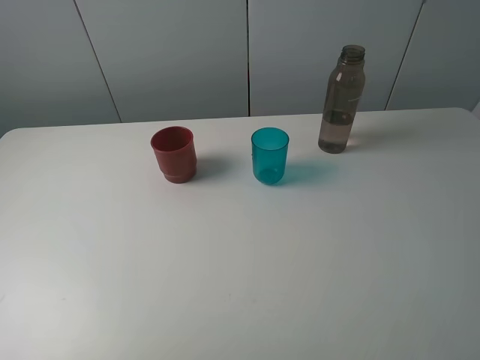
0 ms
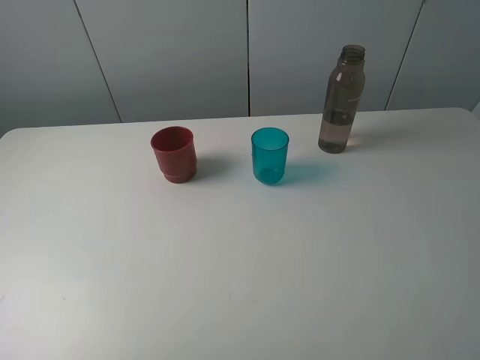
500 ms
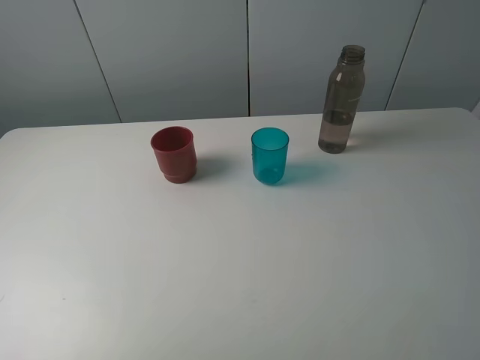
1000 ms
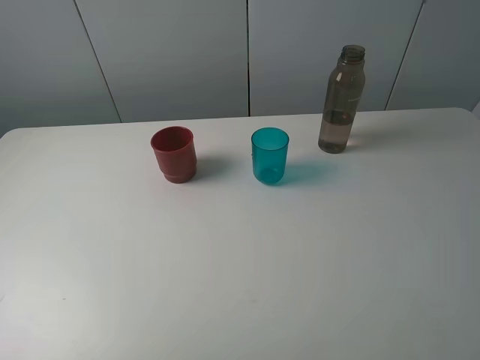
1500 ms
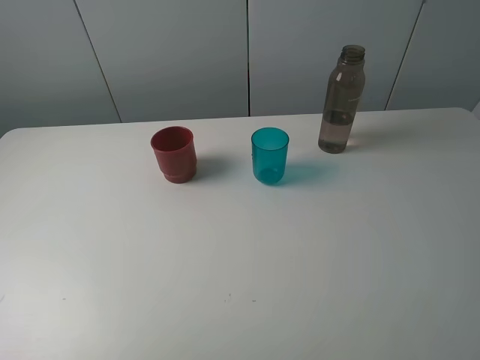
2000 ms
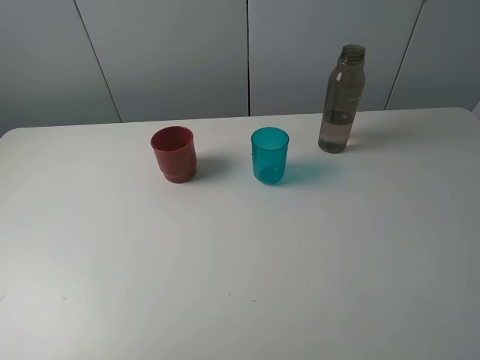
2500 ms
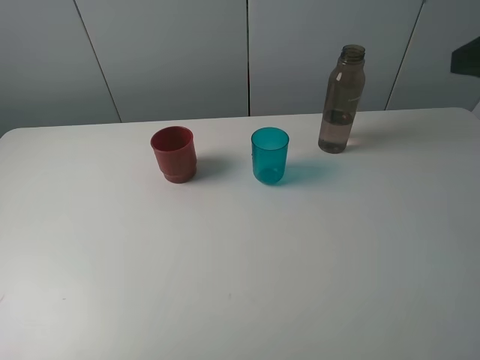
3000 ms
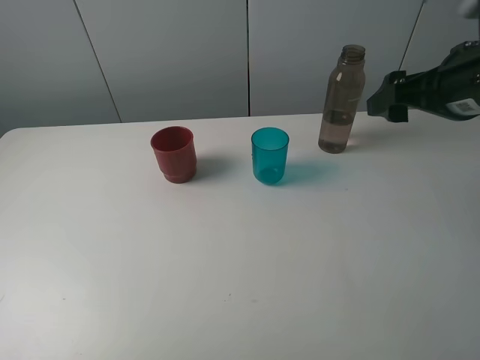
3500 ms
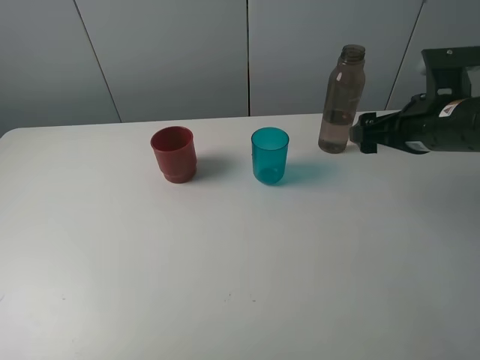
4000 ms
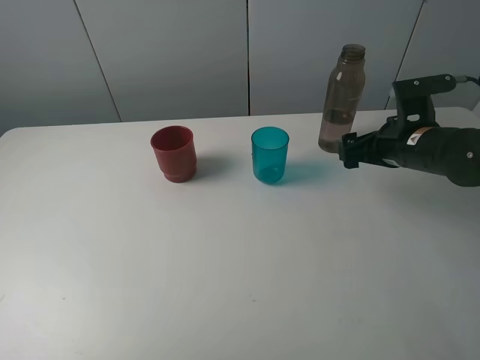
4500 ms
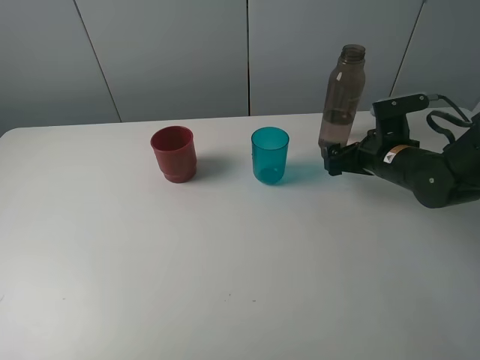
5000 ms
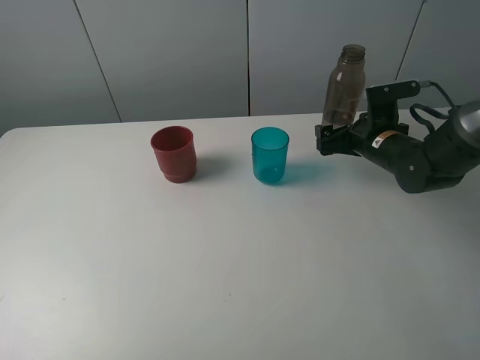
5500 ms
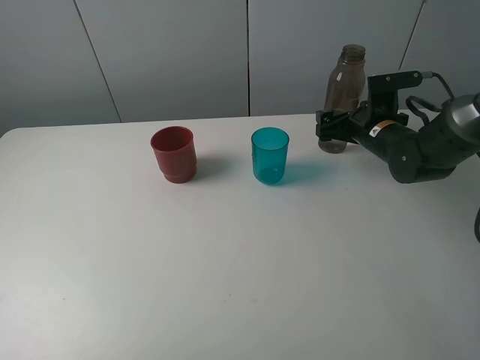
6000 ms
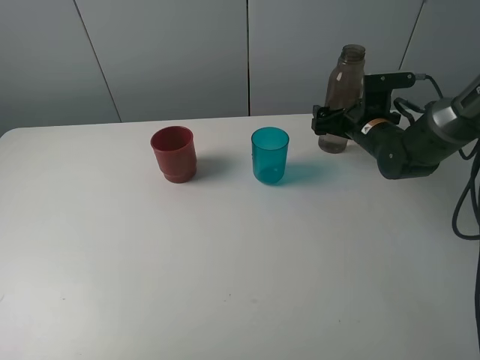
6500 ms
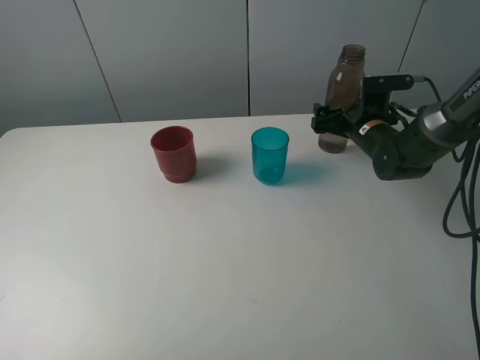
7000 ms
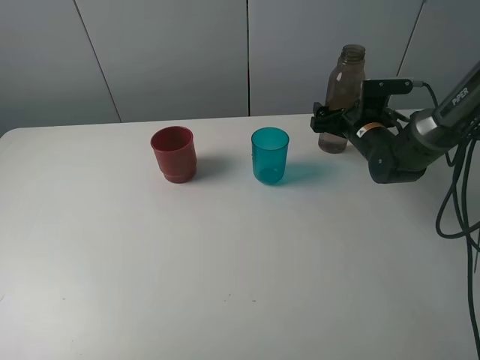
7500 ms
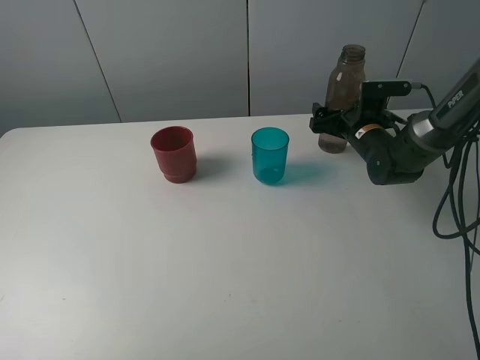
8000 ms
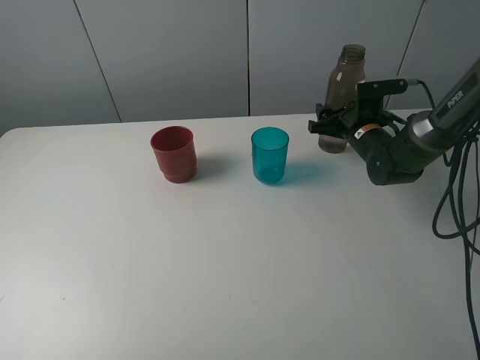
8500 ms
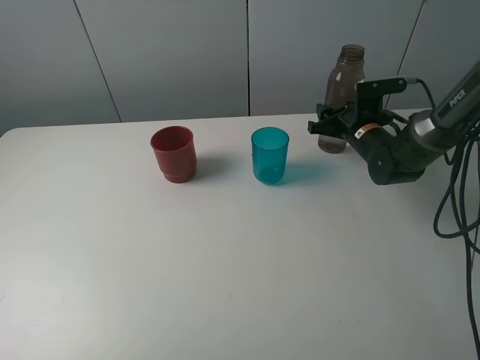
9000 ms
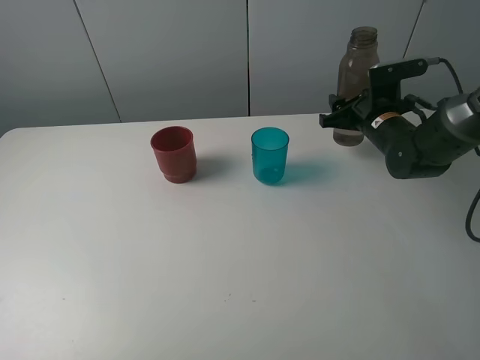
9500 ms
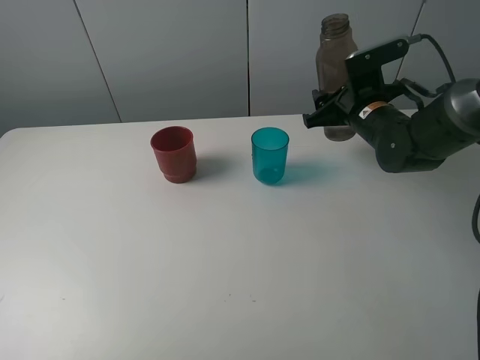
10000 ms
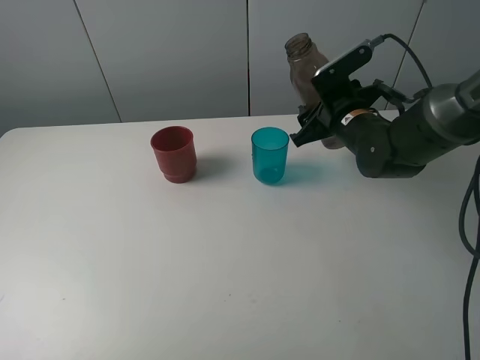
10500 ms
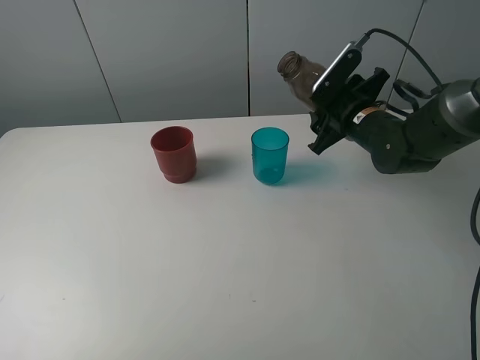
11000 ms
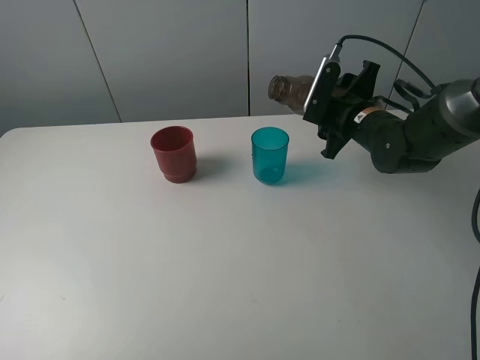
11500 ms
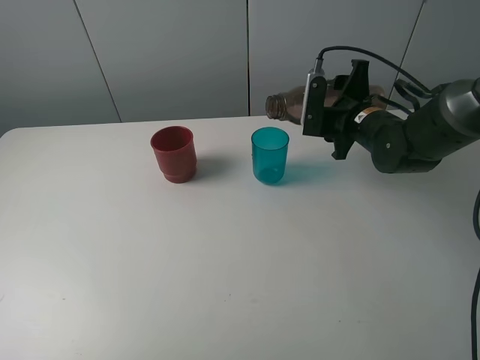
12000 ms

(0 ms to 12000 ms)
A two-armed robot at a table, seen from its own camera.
Task of the whole recording: pick up the bottle and pour water into the cup, then pick up the cup containing water and pour it into another cup.
Step, 0 ms - 8500 ms: Grasp the brown bottle with the right gripper.
0 ms - 2000 ms: Neither gripper changes place.
2000 ms - 4000 ms: The right gripper goes about 30 cm forward.
4000 ms - 6000 ms: The right gripper moves forward and downward, some 15 cm.
6000 ms - 8000 ms: There are only small adjustments of the grippers.
8000 ms - 10000 ms: The right gripper is displaced upward by roughly 5 cm, and closes.

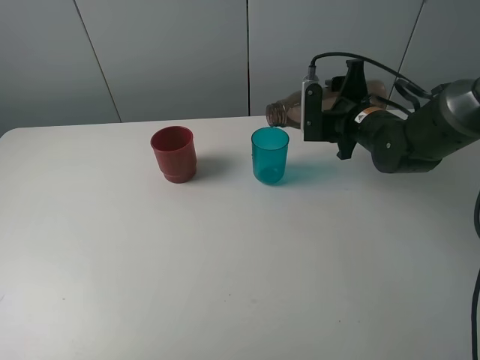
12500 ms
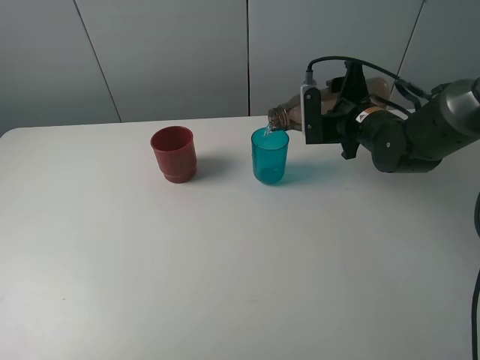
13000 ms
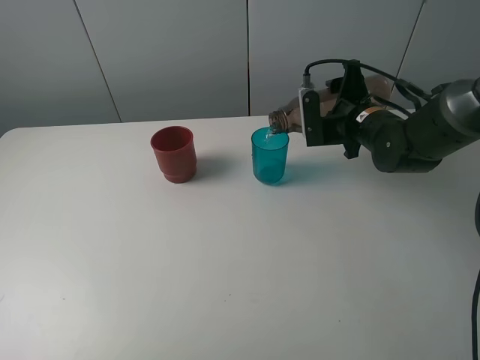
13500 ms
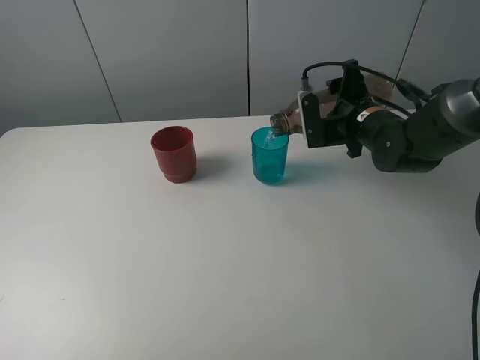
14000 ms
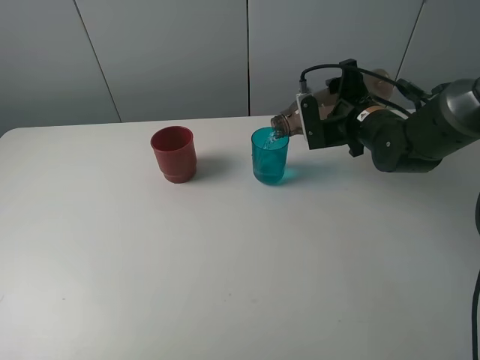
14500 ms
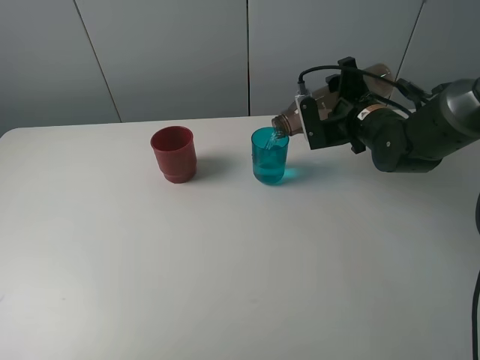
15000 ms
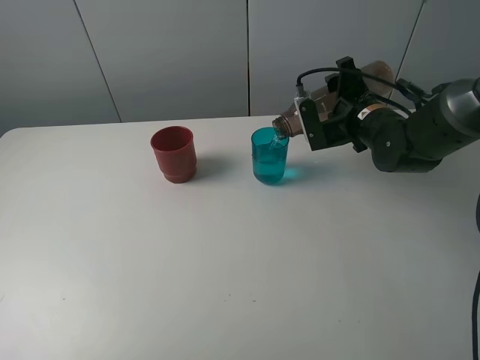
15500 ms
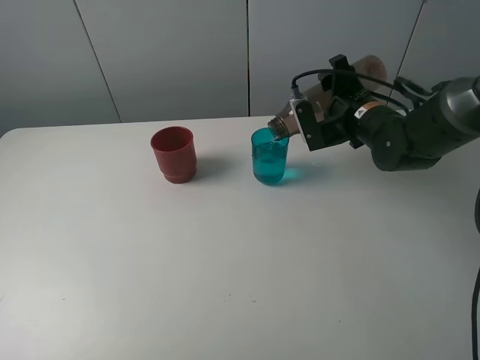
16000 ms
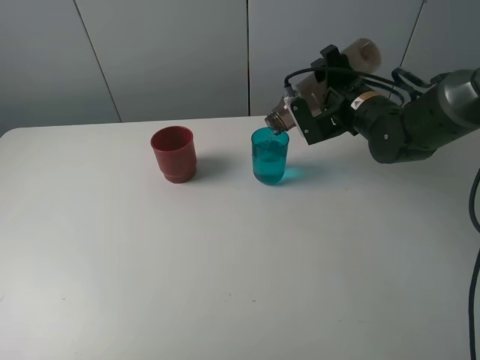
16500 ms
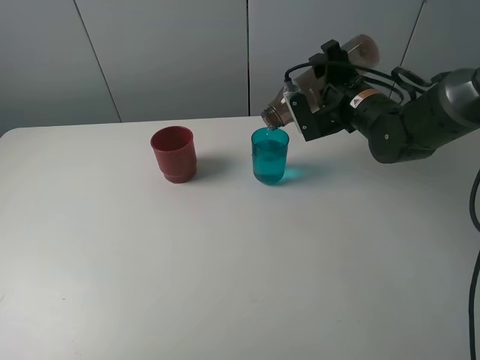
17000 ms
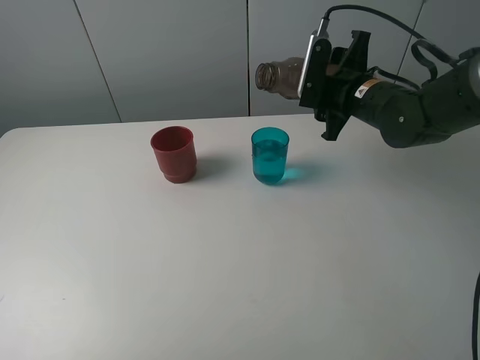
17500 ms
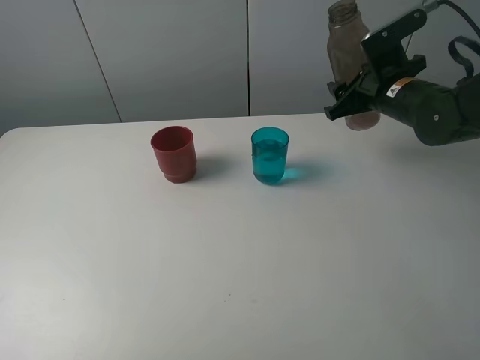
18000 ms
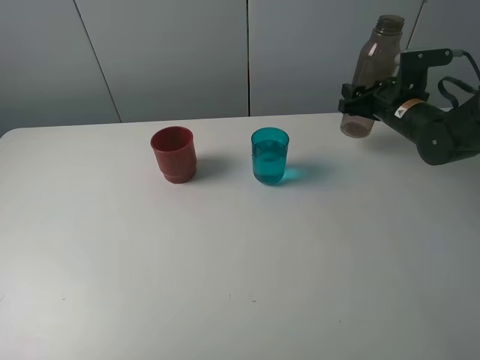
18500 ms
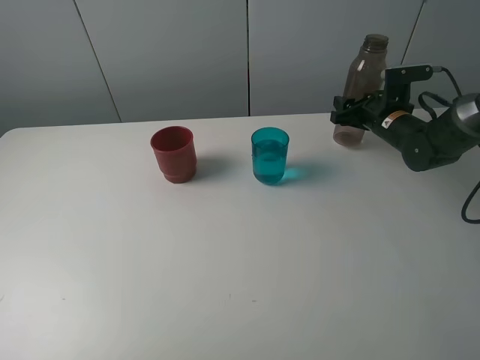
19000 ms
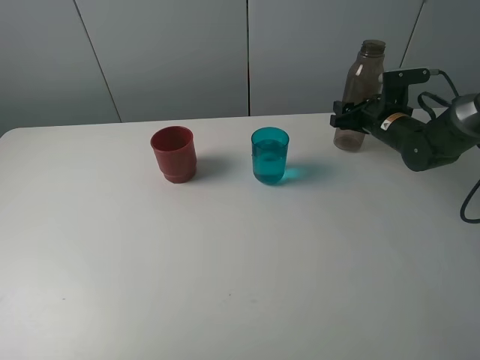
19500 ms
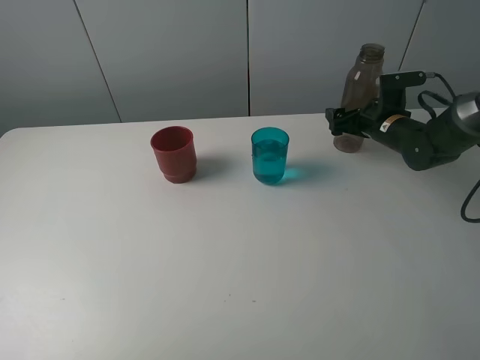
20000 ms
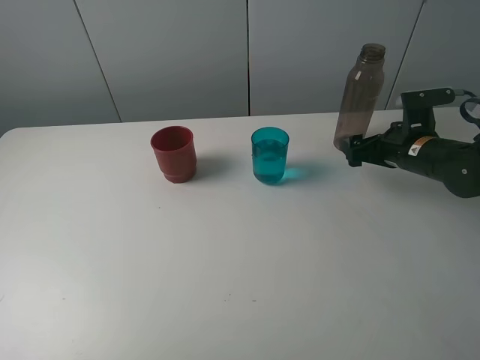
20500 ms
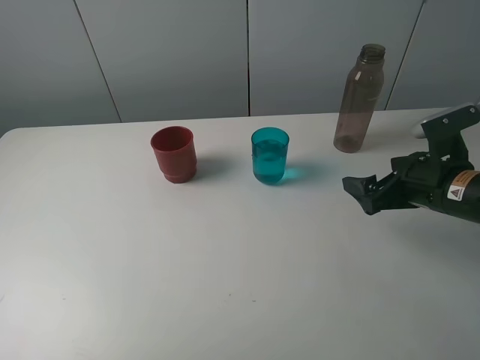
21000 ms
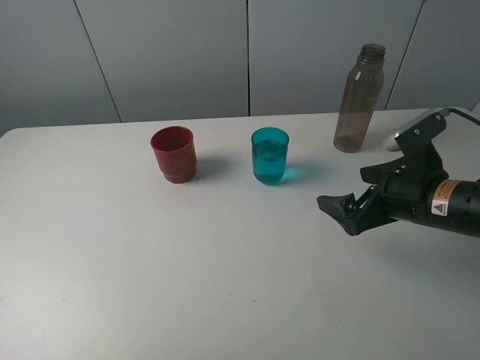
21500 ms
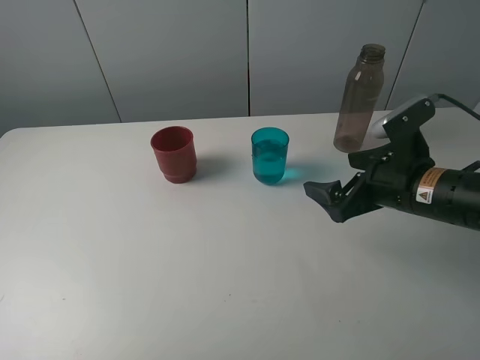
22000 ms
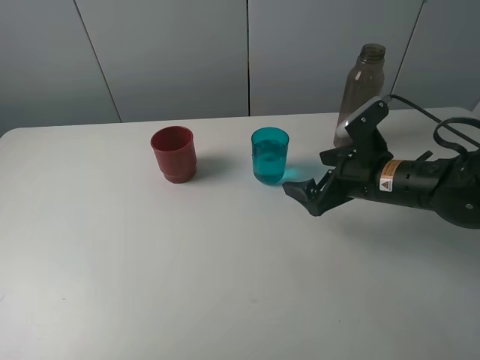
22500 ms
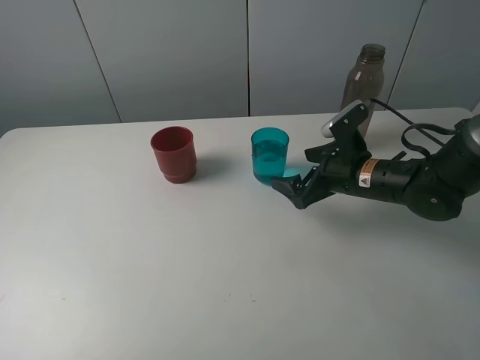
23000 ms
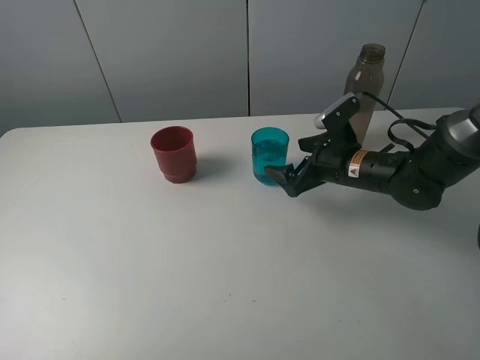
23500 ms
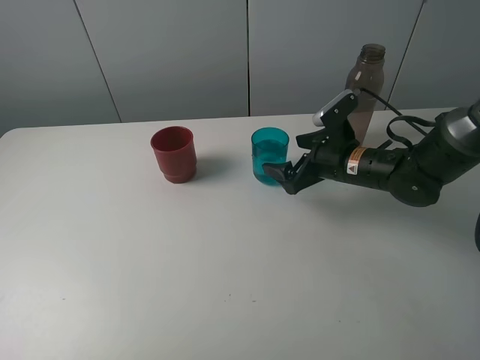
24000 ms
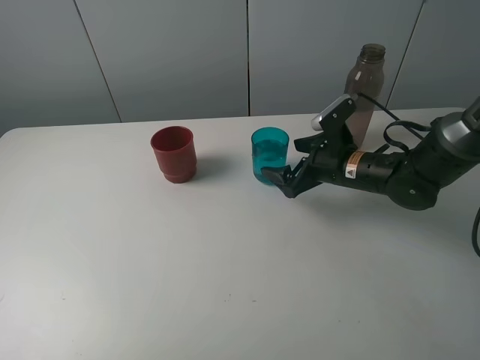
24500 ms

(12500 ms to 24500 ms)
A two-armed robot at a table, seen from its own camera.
Task of the whole recording: pick up the bottle and pour water into the cup, then pick up the cup containing water and pour it into another cup.
Step, 12500 ms - 17000 ms: Pour water from brown bottle to blue cup with the right gripper.
Step, 17500 ms - 20000 ms: Place the brown bottle with the right gripper.
12500 ms - 14500 ms: The grippers move only a little.
14500 ms - 16500 ms: There are only small adjustments of the grippers.
16500 ms - 18500 ms: The right gripper moves to the right, some 10 cm.
18500 ms - 20500 ms: The right gripper goes roughly 10 cm backward, and opens its fingers.
20500 ms - 22500 ms: The right gripper moves to the left, about 10 cm.
22500 ms - 24500 ms: The right gripper travels forward by about 5 cm.

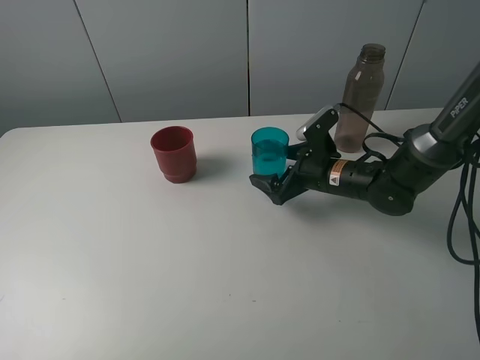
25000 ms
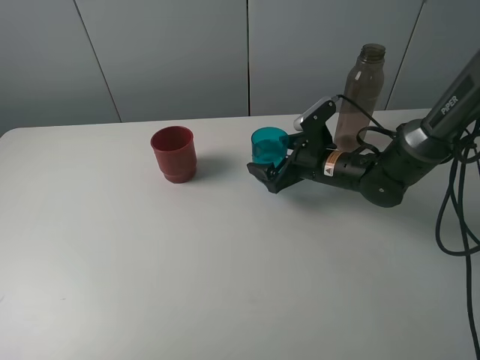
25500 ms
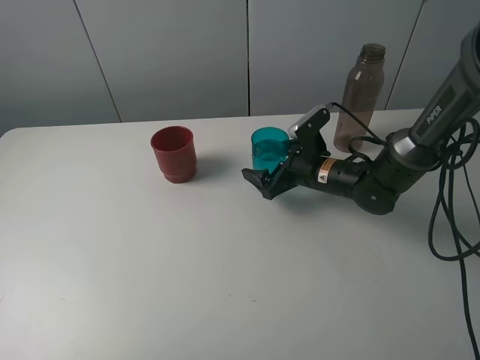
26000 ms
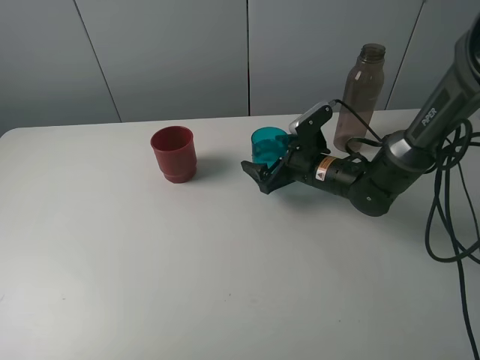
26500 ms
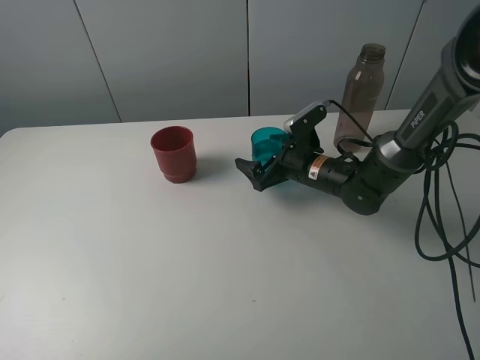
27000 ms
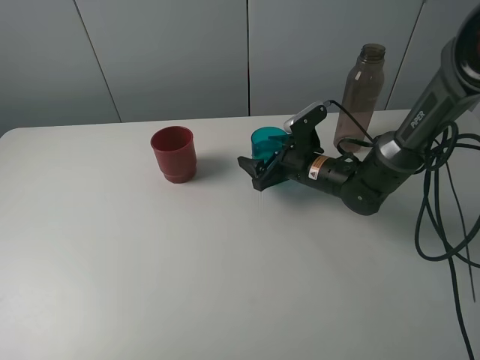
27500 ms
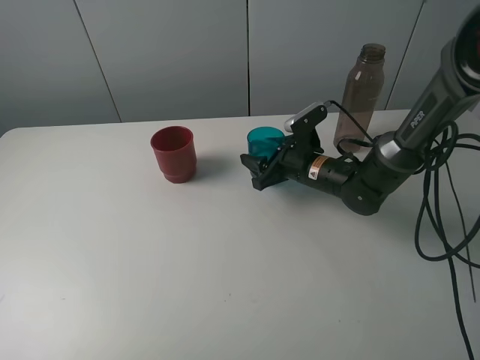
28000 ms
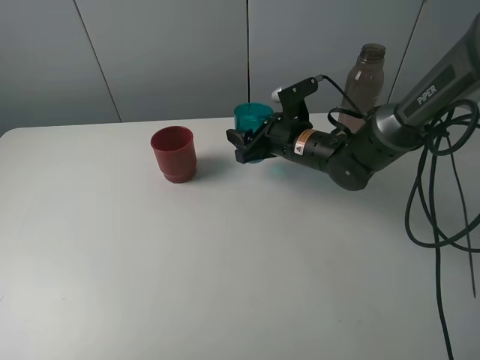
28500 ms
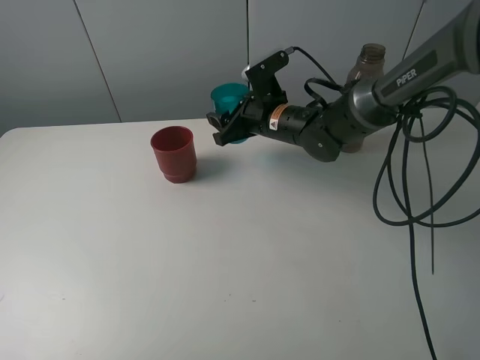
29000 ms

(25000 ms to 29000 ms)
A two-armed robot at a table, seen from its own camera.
Task of the whole recording: pick up the bottle and pour water into the cup, then pick up the cup containing water and pour it into another cup.
Step, 25000 ms - 27500 ms: Grasp the blue cup with the right gripper.
25000 ms - 27000 ms: The grippers move only a little.
27000 ms - 29000 ms: The right gripper goes some 10 cm upward and to the left, and closes up.
